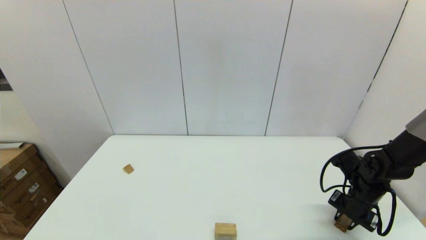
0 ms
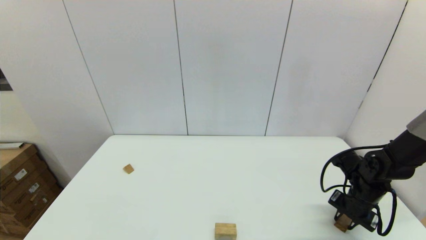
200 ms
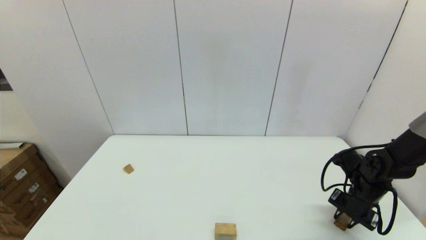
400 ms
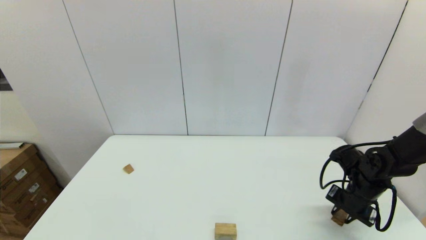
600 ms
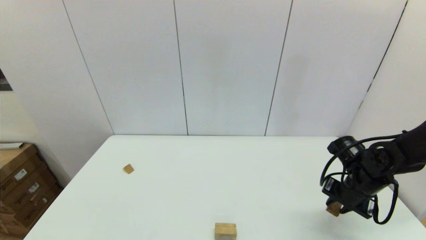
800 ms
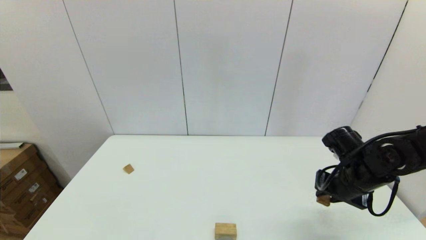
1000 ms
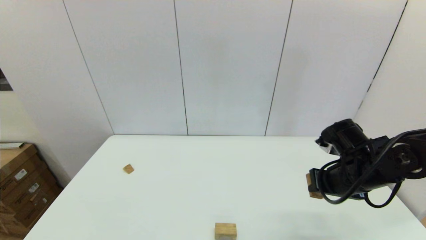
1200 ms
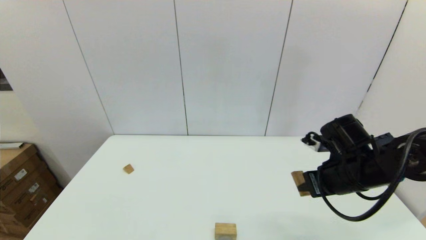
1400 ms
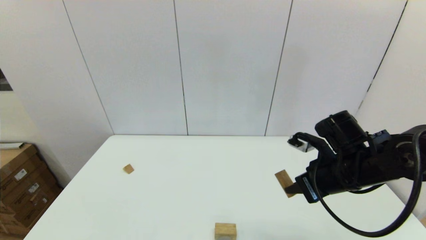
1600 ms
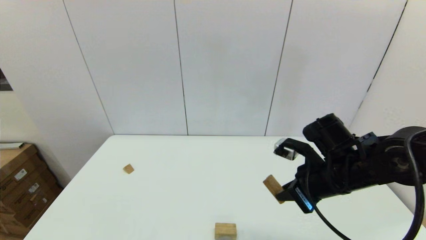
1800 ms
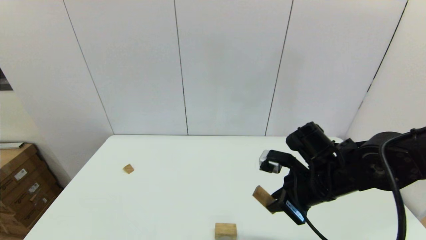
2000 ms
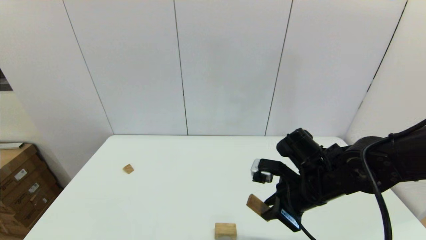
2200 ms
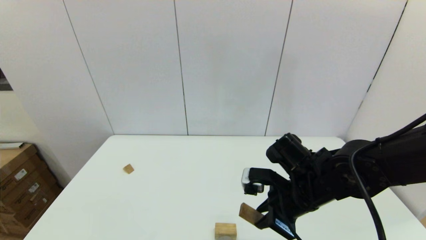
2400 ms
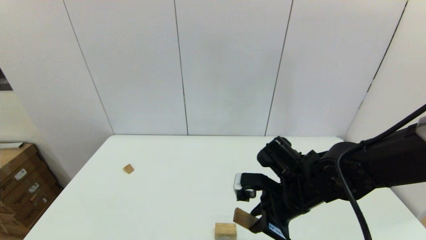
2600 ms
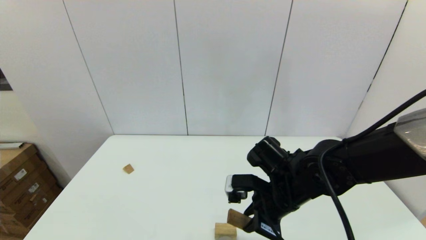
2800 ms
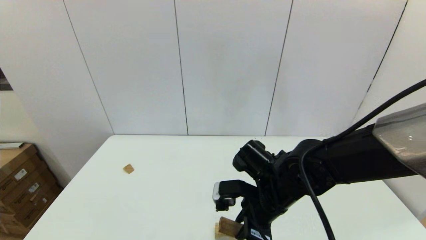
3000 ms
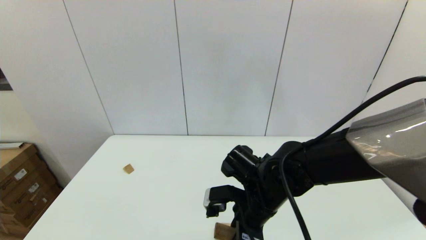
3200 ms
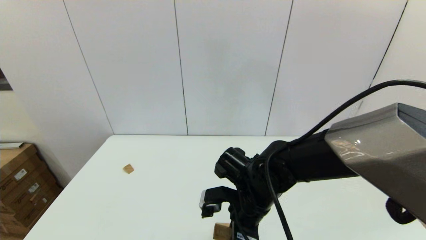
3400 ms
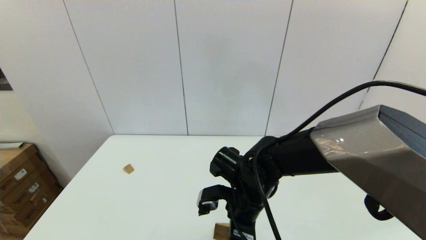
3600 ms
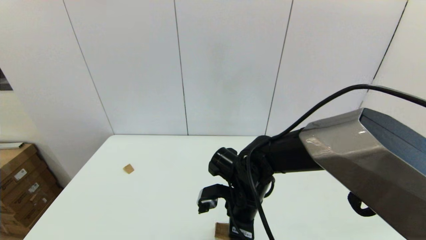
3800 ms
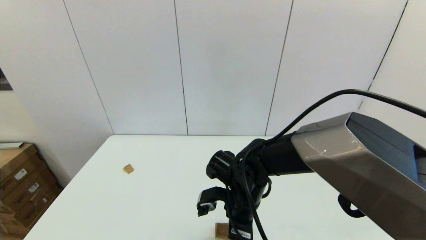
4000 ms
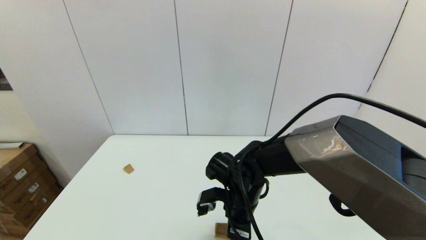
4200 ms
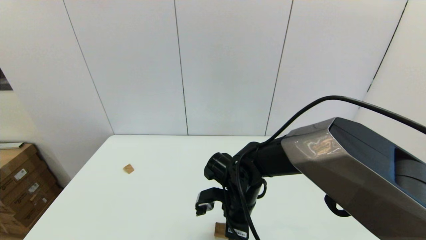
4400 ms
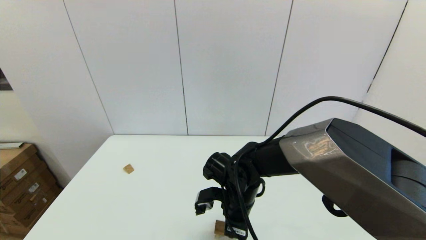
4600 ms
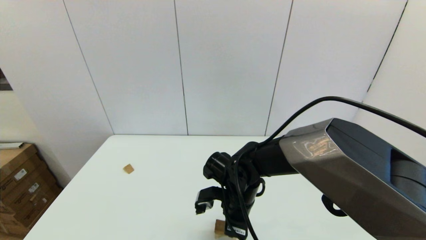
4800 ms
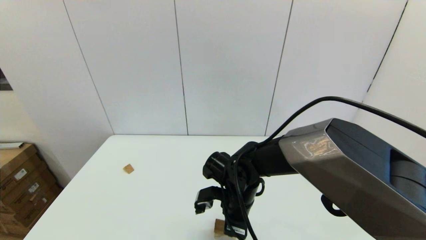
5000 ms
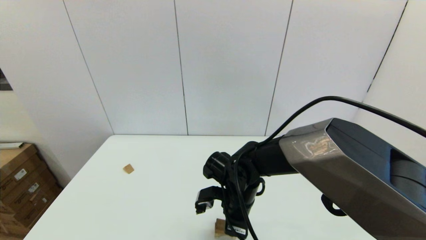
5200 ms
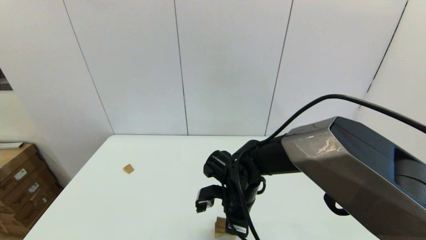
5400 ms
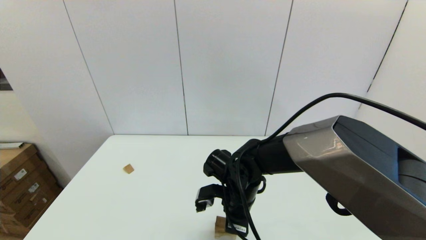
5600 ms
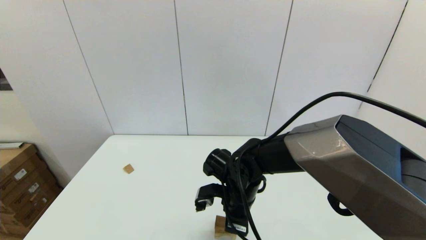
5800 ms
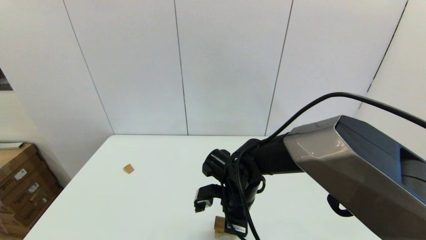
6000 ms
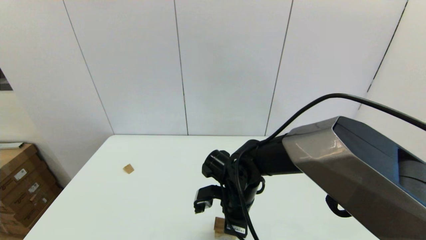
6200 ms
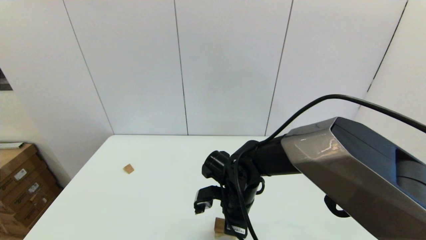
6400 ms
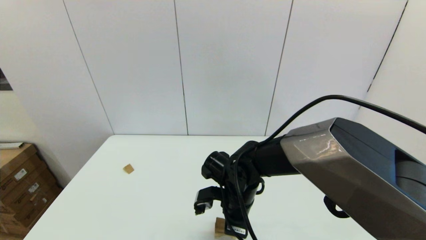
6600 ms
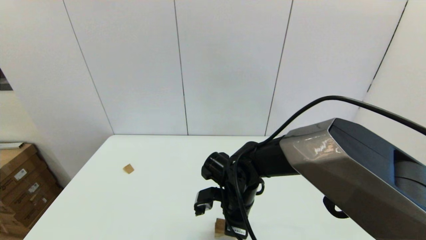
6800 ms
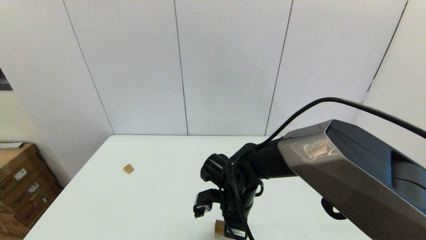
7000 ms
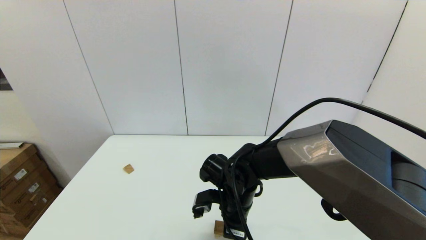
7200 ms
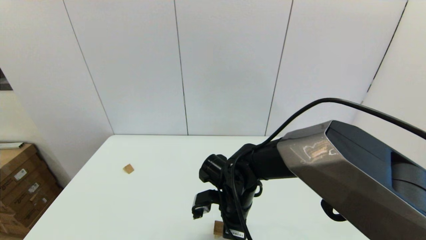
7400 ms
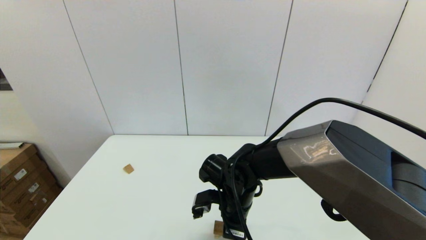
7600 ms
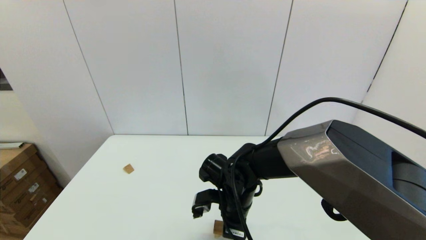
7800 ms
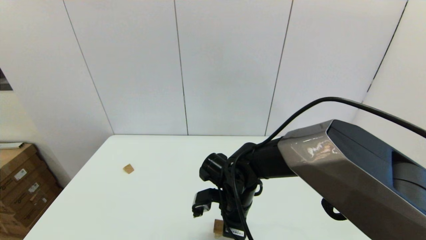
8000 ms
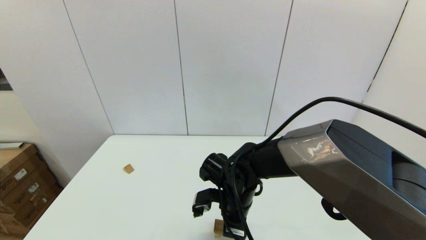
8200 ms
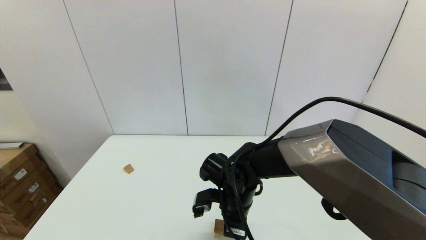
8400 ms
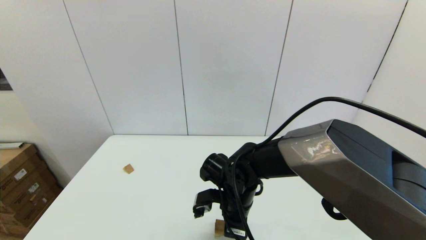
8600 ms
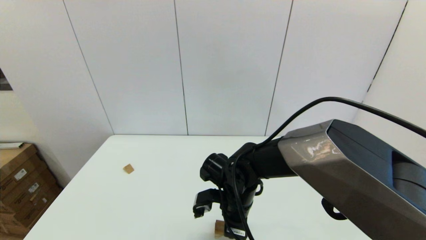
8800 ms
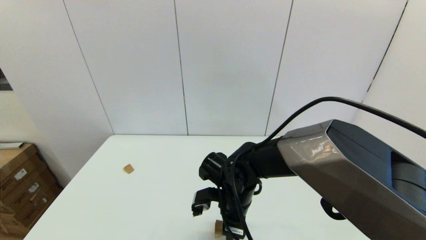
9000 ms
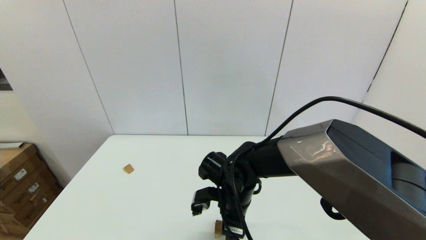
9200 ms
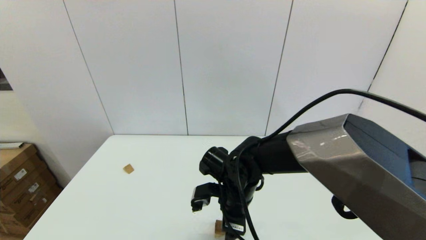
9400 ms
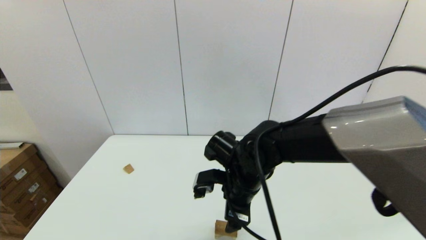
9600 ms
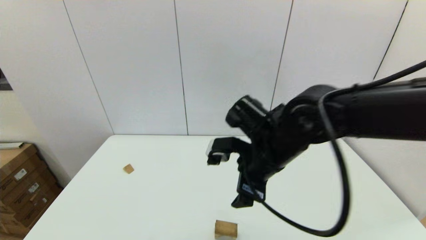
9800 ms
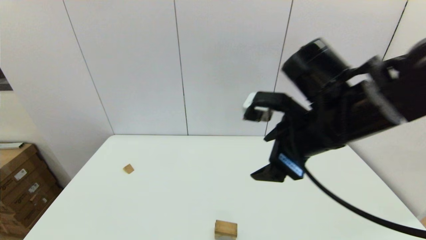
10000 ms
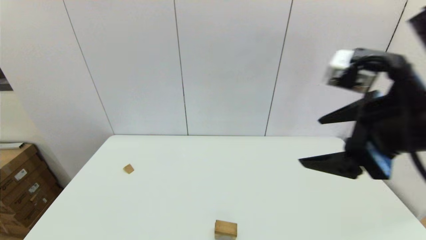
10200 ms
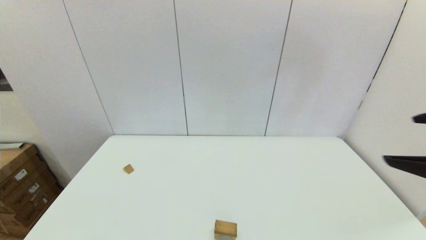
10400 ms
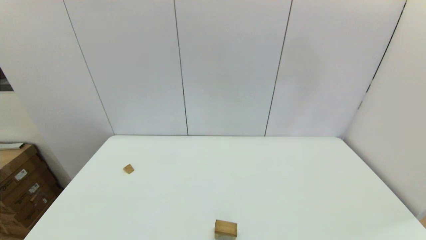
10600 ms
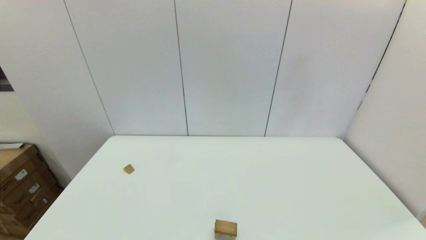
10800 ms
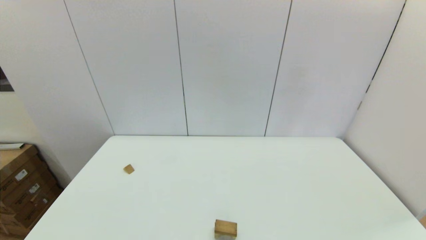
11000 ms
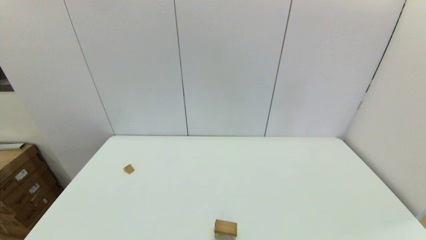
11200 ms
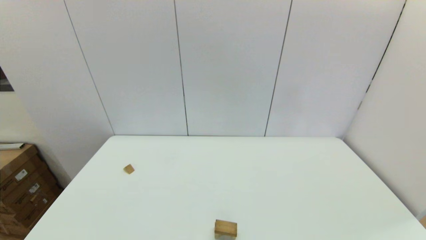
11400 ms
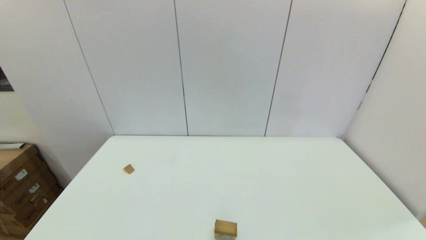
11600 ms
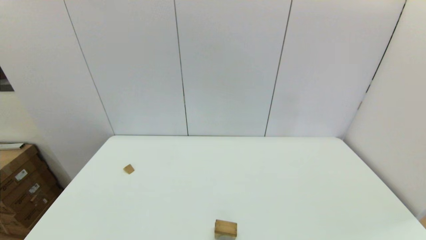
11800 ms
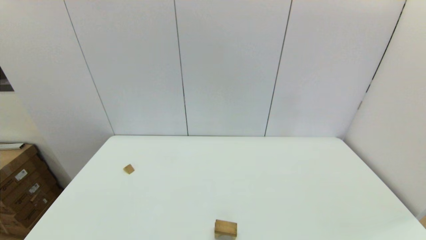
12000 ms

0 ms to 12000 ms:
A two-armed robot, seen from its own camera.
Task of the whole recording: place the arched building blocks in the center of the table, set up the rectangular building blocks, and then set up the triangular building blocks.
Step, 0 ms to 9000 ms: Place the box-shaped block onto the arch-shaped block with the right gripper.
0 ms to 1600 ms: The right gripper goes approximately 20 cm upward and to the left.
1600 ms to 3000 ms: The right gripper heads to the left, covering approximately 15 cm.
3000 ms to 4400 ms: The right gripper is displaced to the left and downward by approximately 5 cm.
4400 ms to 6000 ms: Both grippers stay put.
6000 ms to 7600 ms: Neither gripper changes place.
7600 ms to 9000 ms: The right gripper opens its fingers.
9000 ms to 10400 ms: The right gripper goes some 40 cm upward, to the right and backward, and opens its fingers.
10400 ms to 12000 ms: The right gripper heads downward and backward, covering roughly 25 cm.

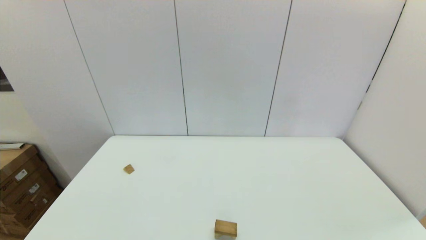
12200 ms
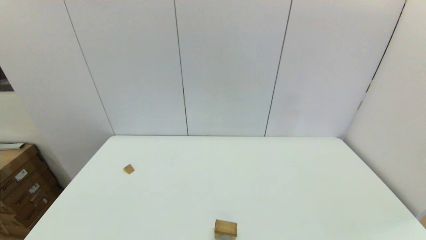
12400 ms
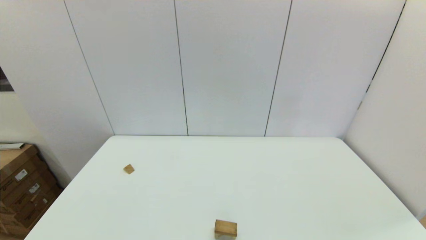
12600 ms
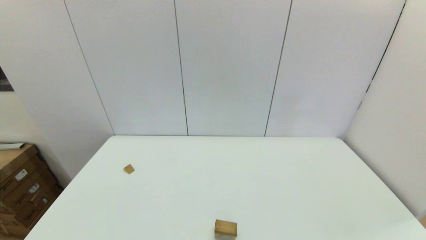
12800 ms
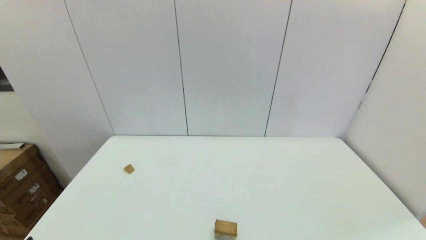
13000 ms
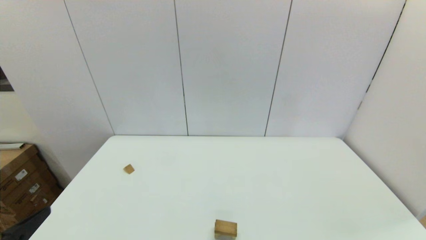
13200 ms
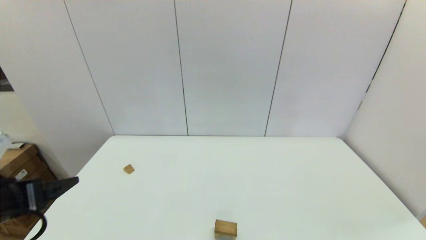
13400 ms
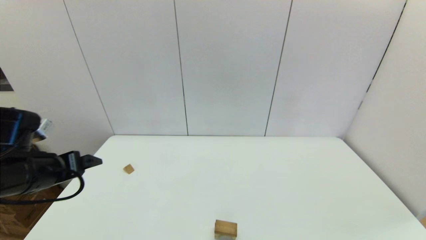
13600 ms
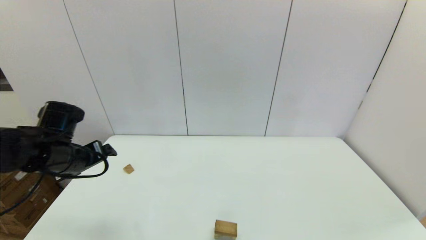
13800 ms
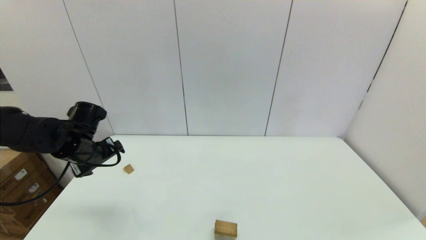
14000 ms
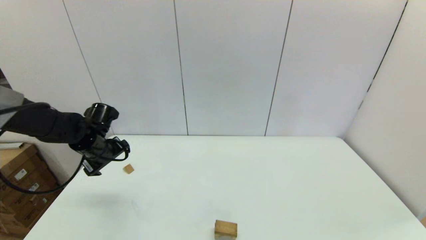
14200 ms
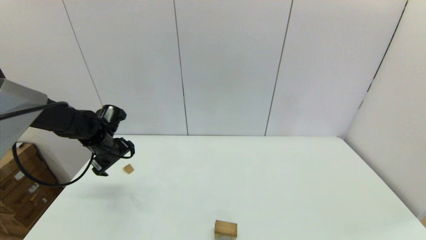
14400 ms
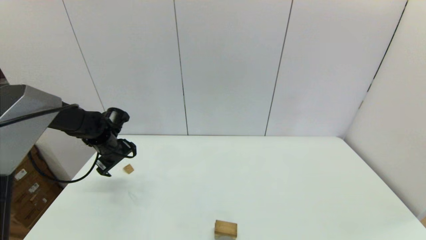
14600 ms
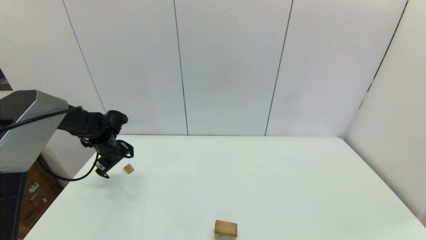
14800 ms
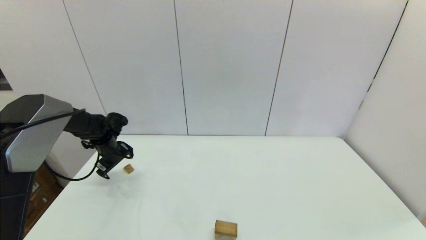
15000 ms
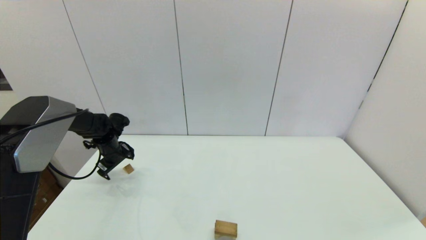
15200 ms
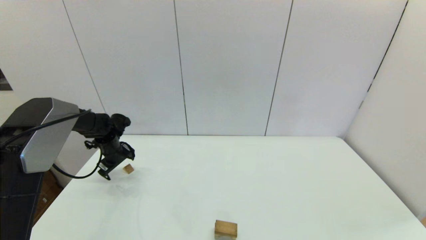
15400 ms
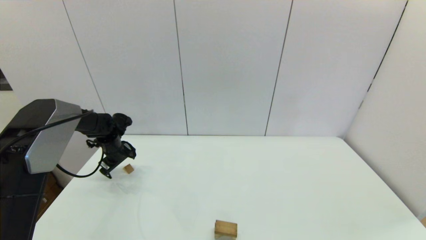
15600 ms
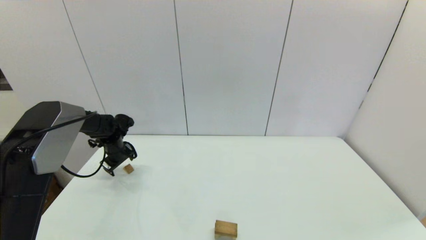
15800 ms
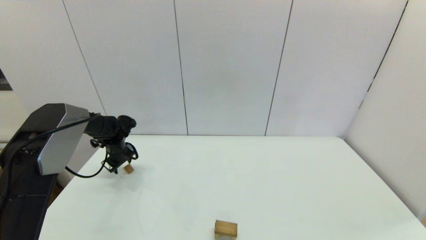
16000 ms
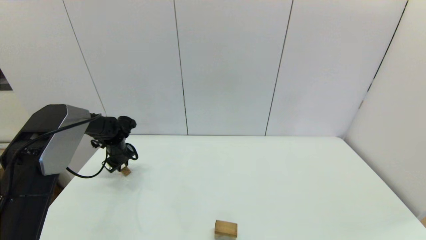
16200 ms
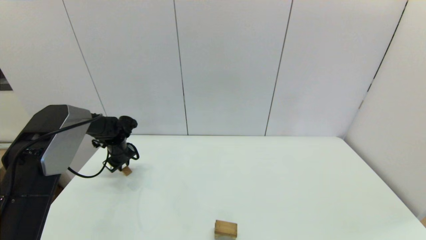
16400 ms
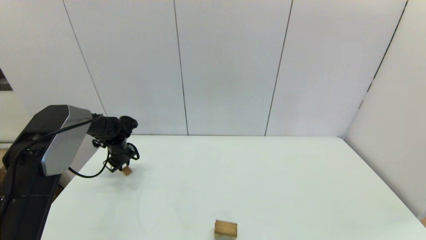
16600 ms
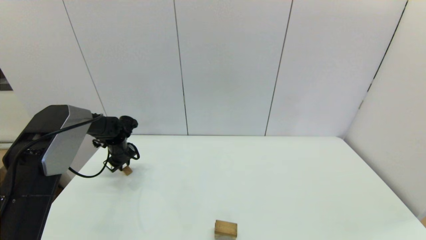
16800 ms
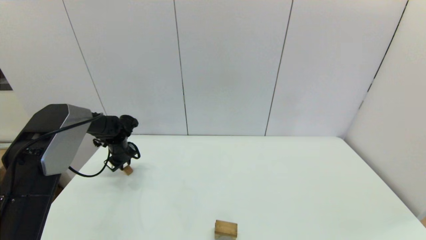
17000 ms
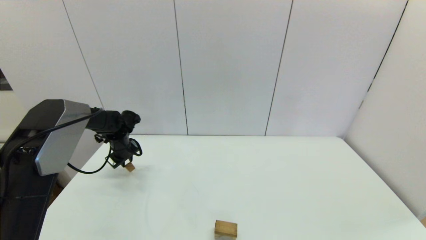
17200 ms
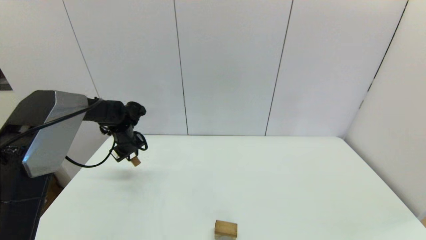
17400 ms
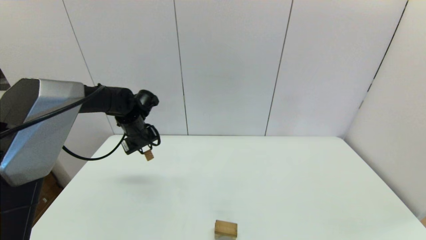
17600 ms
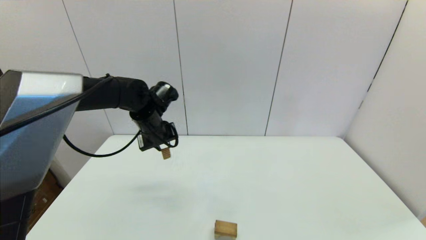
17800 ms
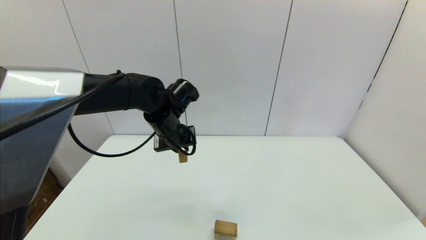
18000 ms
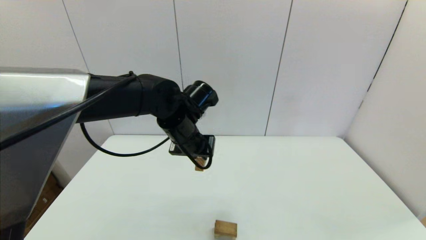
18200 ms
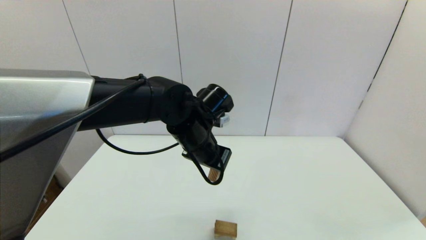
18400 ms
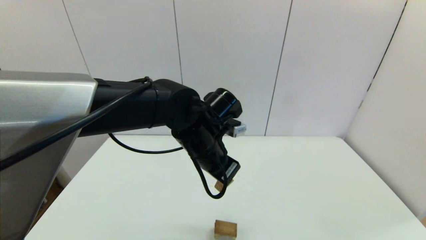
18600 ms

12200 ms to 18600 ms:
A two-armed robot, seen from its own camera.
Task of the whole recording: place the arched building blocks in the center of the table, set up the rectangular building blocks, and then set up the triangular building blocks.
Step, 12200 ms to 16000 ms: Grasp the triangle-shaped block with the left gripper.
12200 ms to 13800 ms: The left gripper goes some 30 cm forward.
13800 ms to 15400 ms: The left gripper heads forward and downward, covering some 20 cm.
15400 ms to 17000 ms: The left gripper closes its fingers.
17000 ms to 18600 ms: The left gripper goes about 35 cm to the right, backward and upward.
